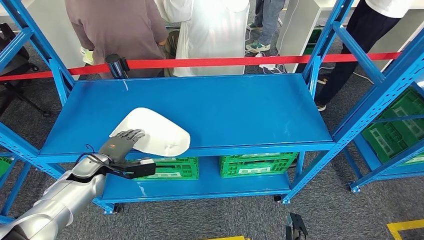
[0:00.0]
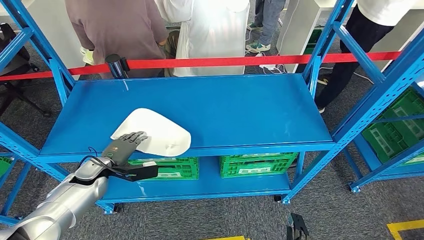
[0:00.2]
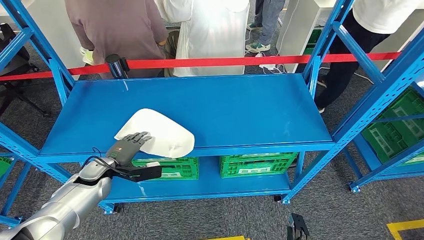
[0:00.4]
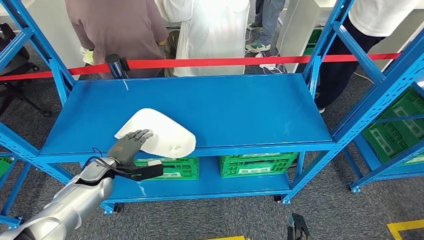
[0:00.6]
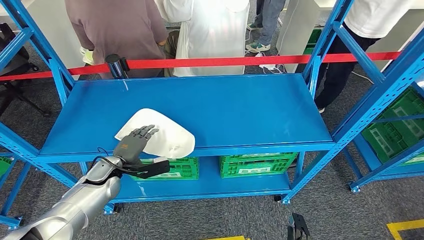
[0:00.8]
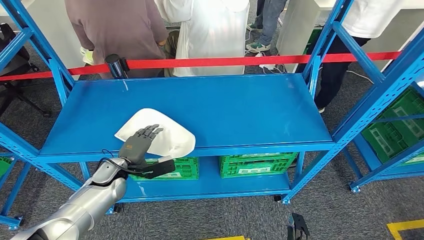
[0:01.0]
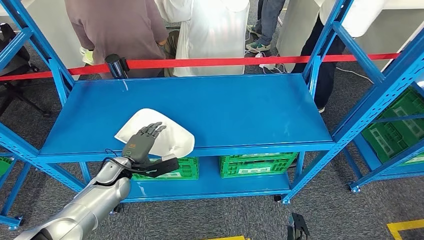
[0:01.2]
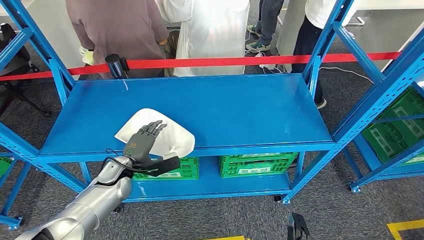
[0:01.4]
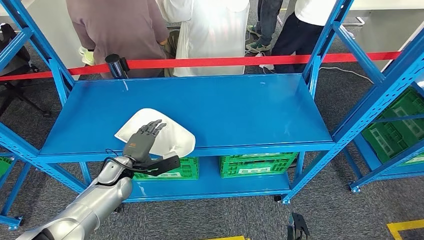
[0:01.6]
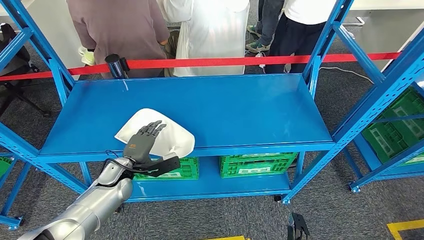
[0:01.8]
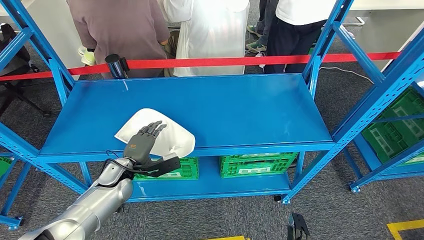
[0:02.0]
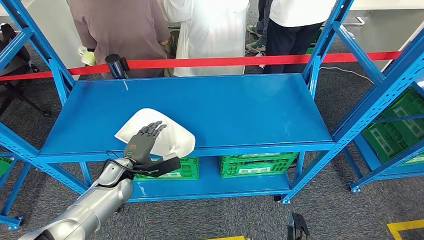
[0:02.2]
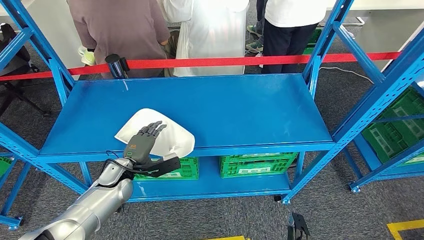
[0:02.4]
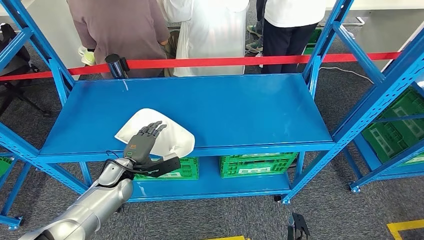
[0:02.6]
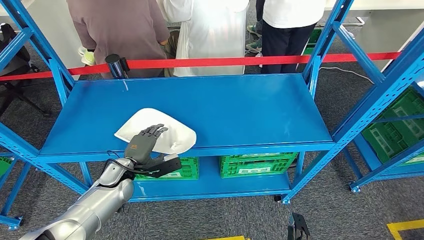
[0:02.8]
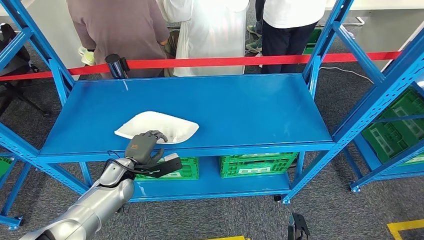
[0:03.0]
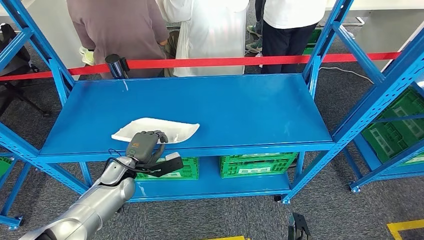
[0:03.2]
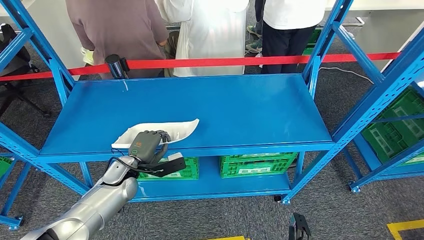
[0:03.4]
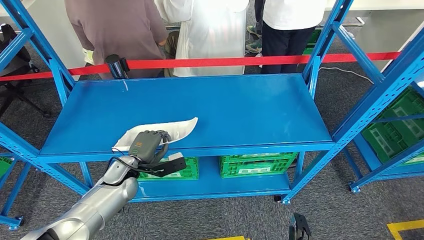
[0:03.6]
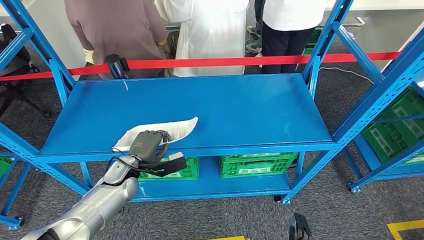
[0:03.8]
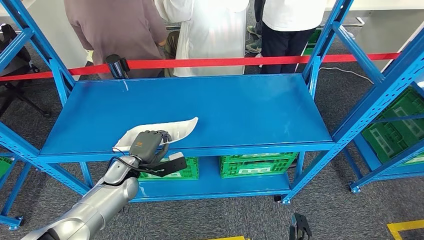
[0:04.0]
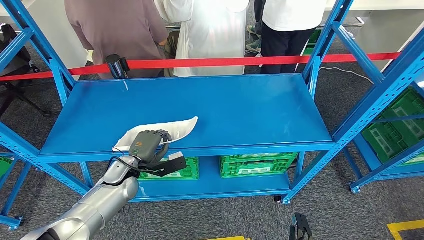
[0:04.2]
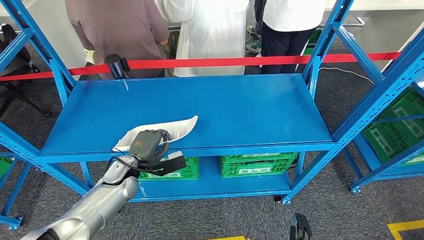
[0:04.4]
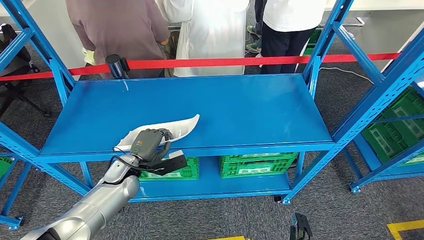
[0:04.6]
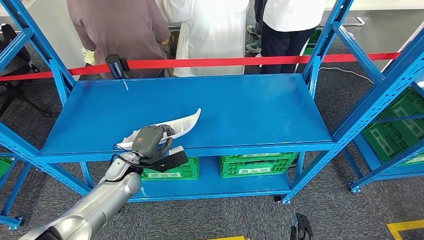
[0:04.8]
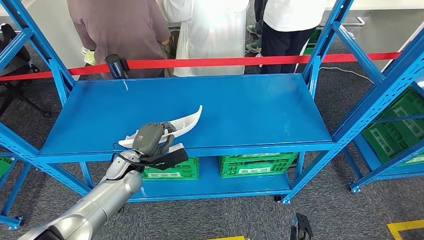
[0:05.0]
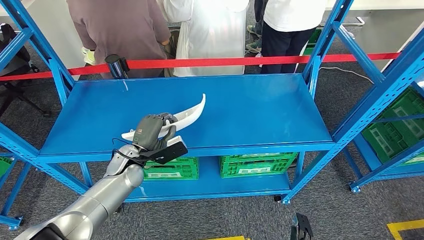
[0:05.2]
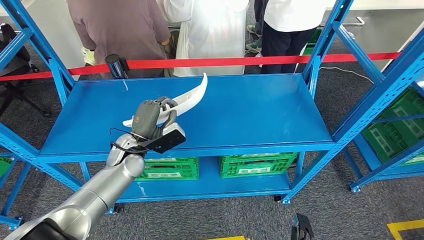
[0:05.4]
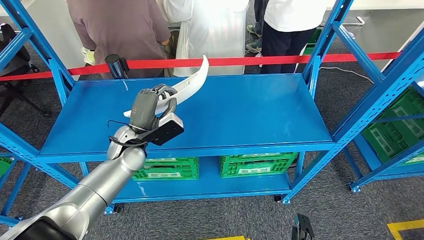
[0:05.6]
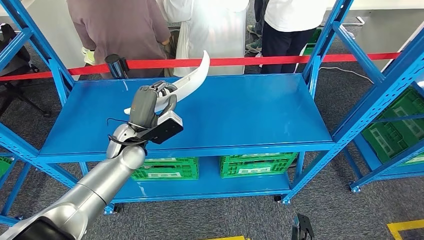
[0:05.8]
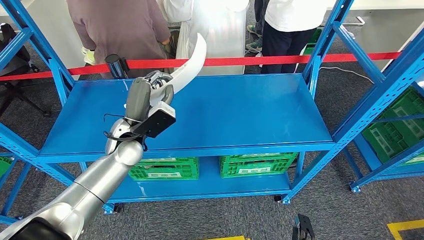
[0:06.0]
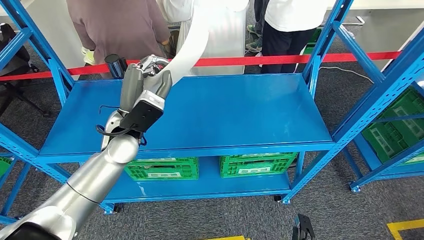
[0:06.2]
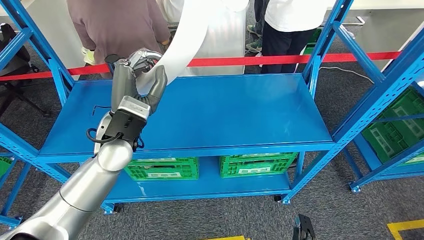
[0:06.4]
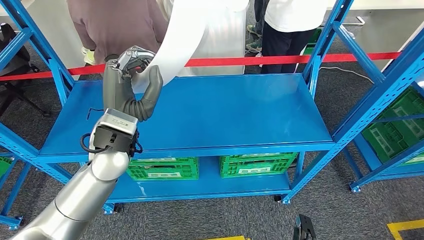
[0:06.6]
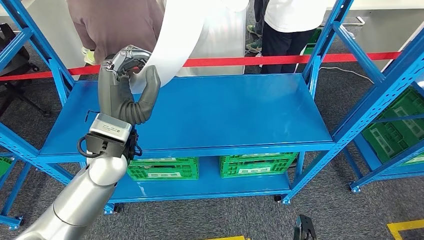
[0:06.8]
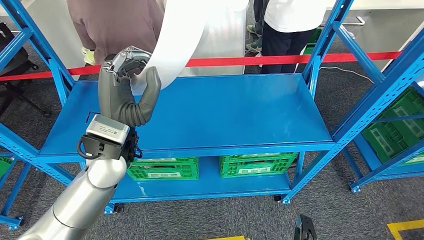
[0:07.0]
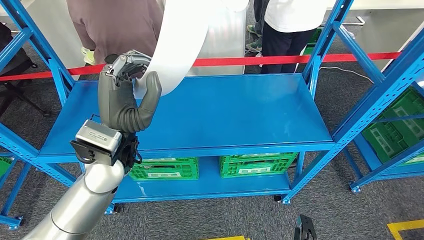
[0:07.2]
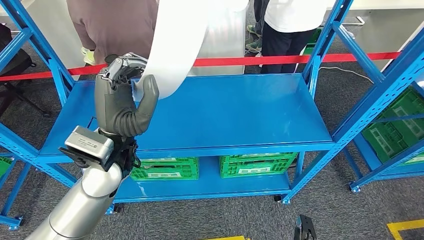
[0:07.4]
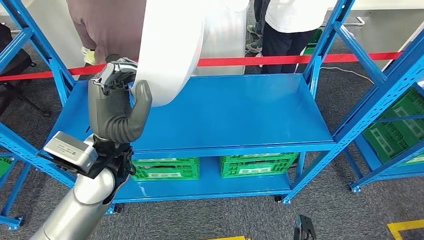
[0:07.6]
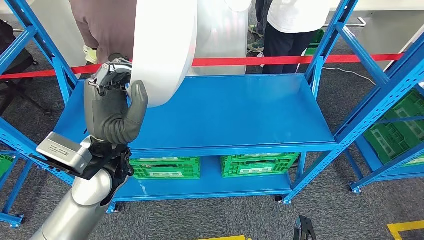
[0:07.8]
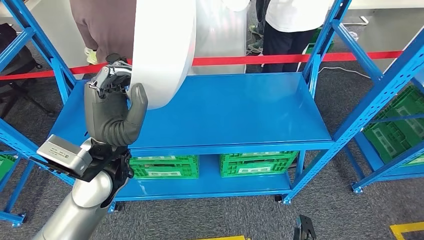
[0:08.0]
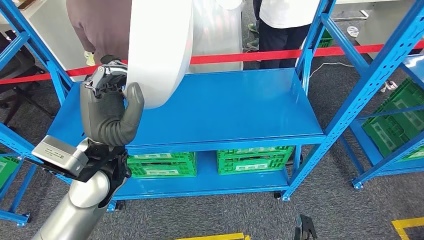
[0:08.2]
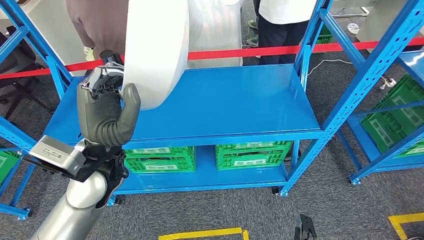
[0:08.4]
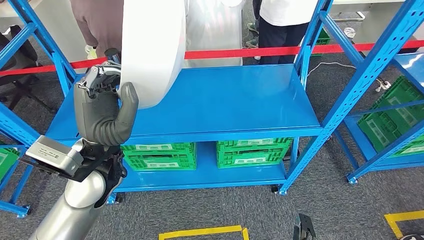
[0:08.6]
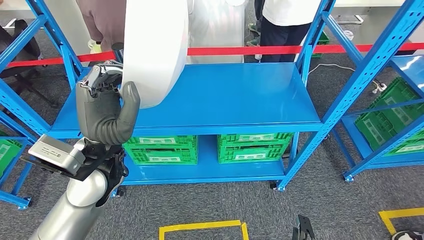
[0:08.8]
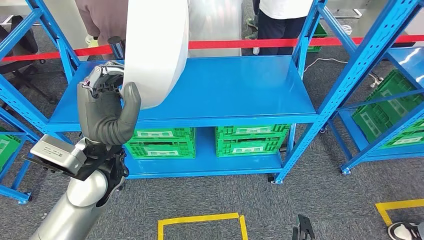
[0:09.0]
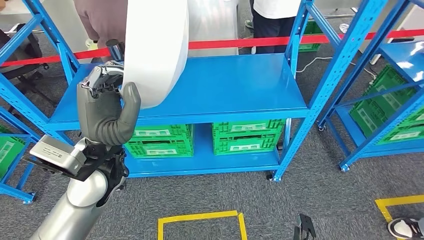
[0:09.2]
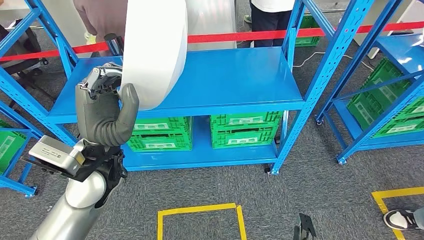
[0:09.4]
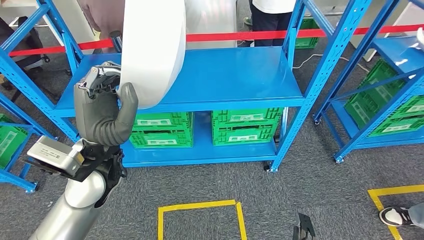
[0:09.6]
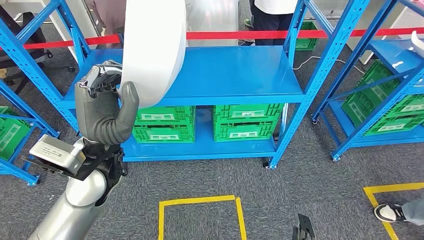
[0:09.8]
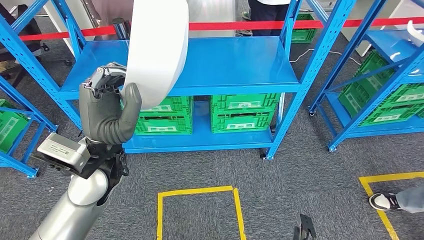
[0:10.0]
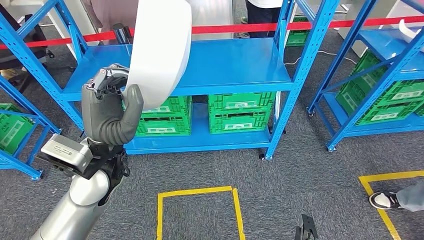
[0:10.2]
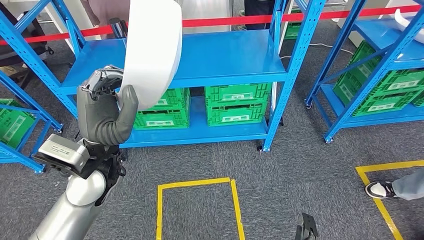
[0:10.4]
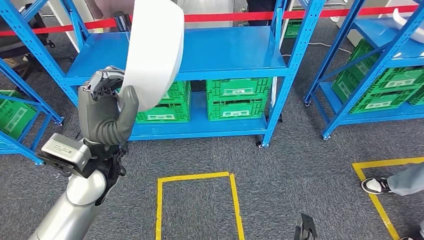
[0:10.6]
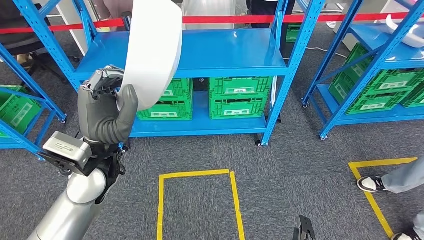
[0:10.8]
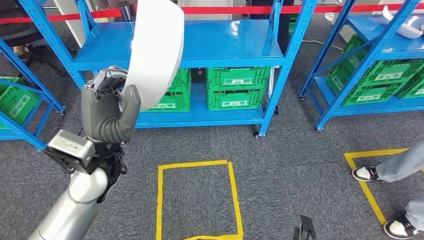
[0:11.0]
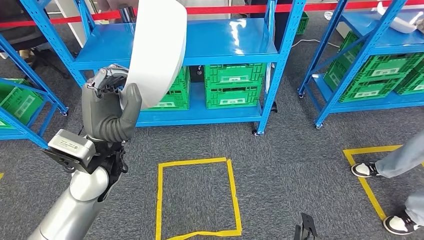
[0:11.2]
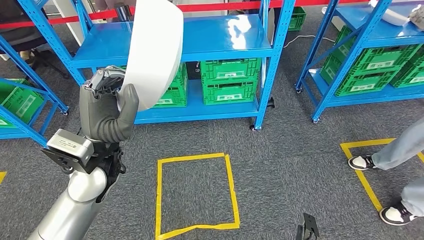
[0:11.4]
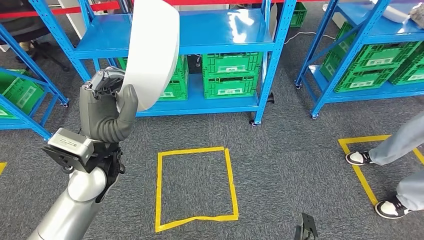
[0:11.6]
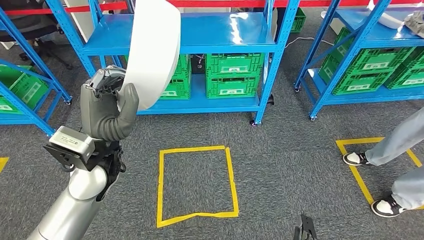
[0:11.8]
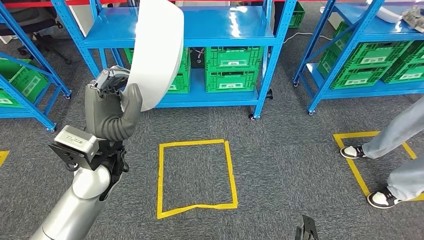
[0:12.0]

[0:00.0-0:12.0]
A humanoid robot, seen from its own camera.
Step, 0:00.0 to 0:05.6: Pick up the large material from the shelf.
0:00.0 to 0:01.6: The left hand moves to the right, about 10 cm.
0:01.6 to 0:03.0: The two hands keep their place.
0:03.0 to 0:04.4: The hands move only a little.
0:04.4 to 0:06.0: The left hand moves upward, roughly 15 cm.
0:06.0 to 0:07.6: The left hand goes some 10 cm upward and backward.

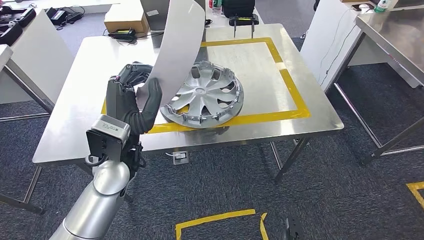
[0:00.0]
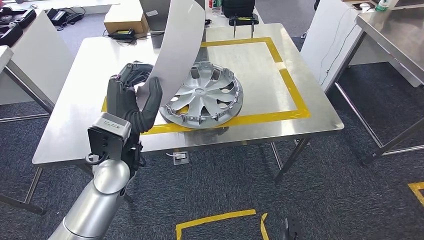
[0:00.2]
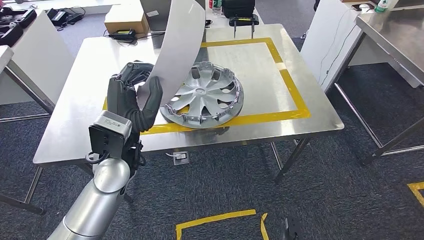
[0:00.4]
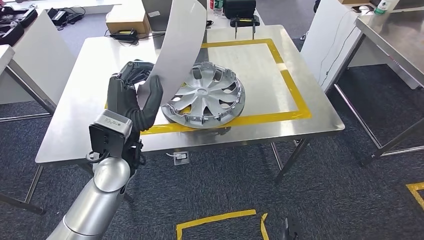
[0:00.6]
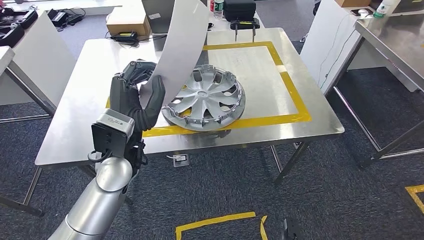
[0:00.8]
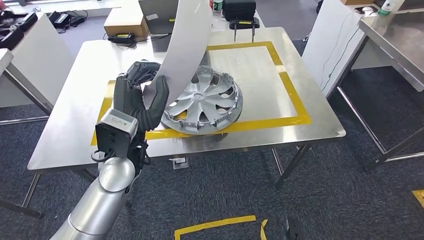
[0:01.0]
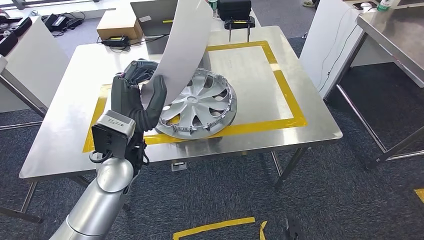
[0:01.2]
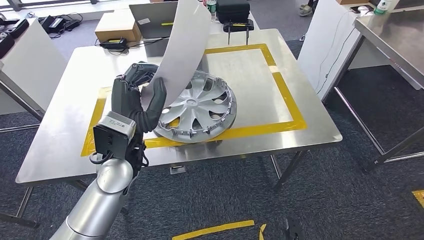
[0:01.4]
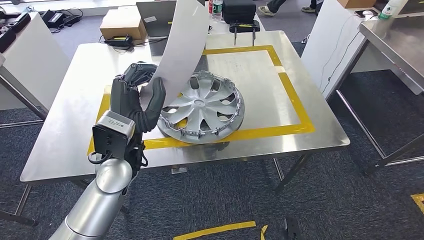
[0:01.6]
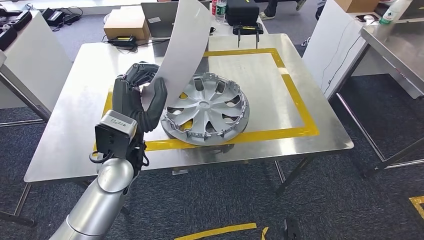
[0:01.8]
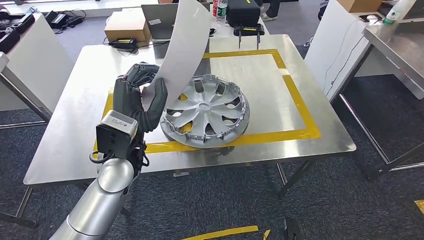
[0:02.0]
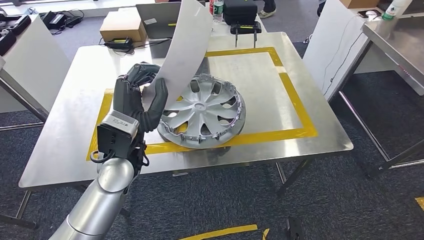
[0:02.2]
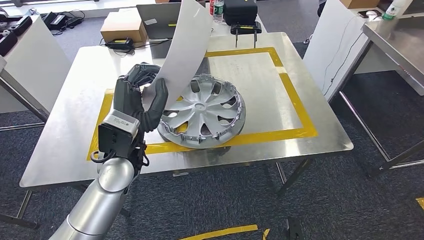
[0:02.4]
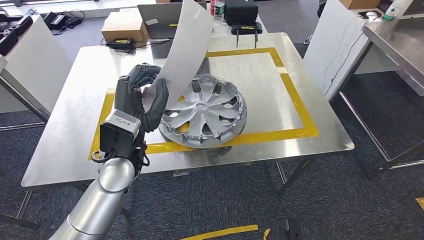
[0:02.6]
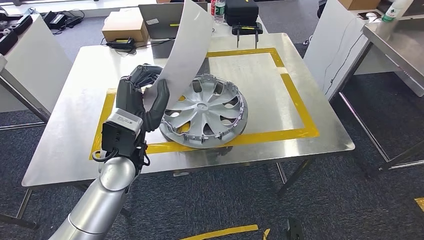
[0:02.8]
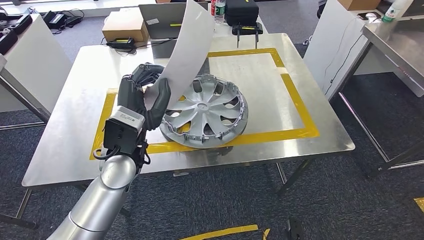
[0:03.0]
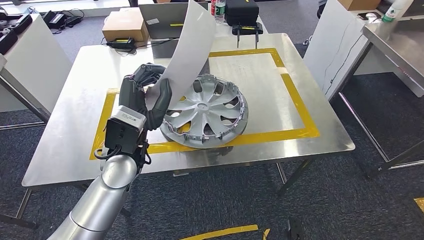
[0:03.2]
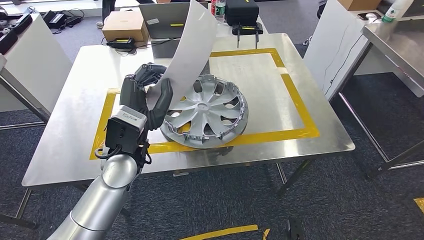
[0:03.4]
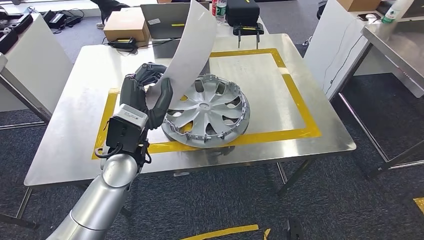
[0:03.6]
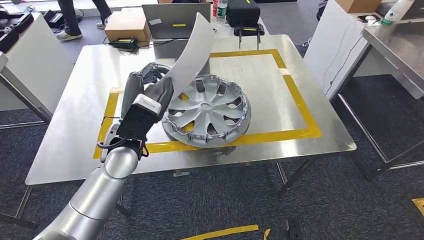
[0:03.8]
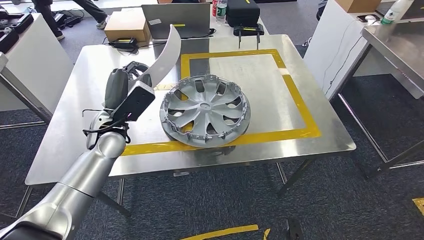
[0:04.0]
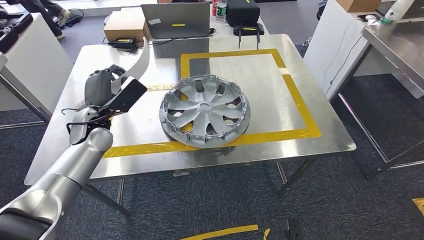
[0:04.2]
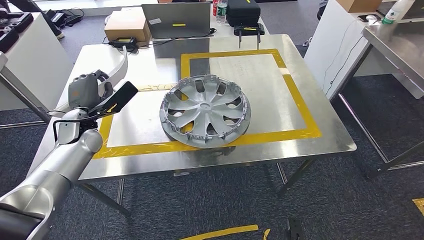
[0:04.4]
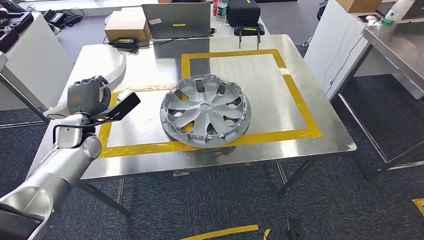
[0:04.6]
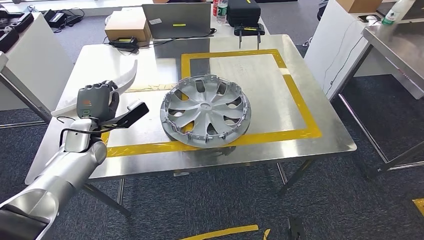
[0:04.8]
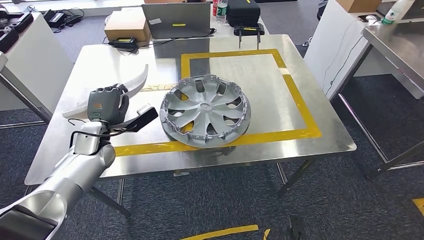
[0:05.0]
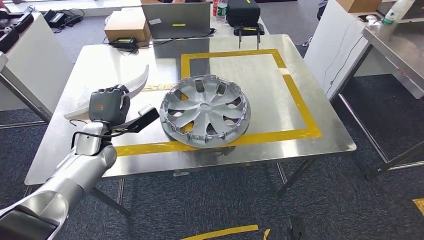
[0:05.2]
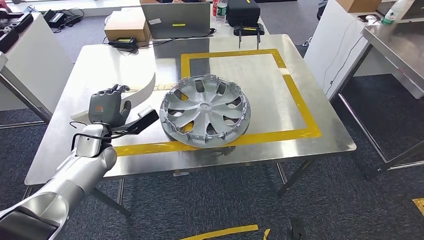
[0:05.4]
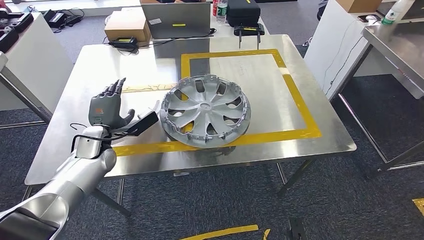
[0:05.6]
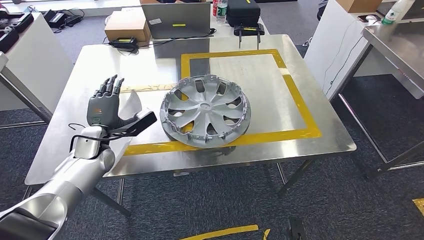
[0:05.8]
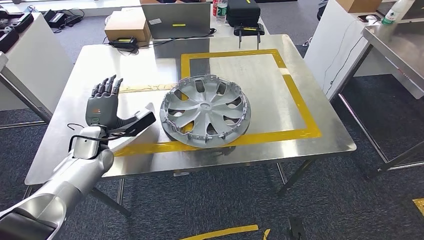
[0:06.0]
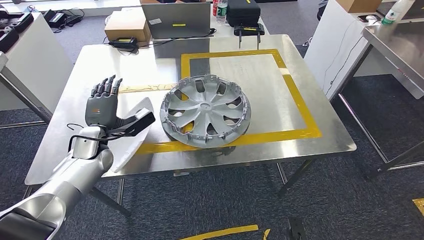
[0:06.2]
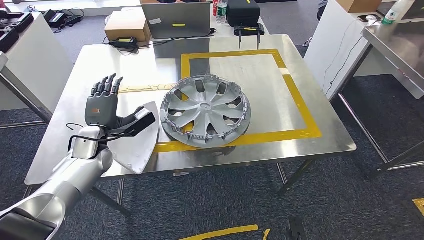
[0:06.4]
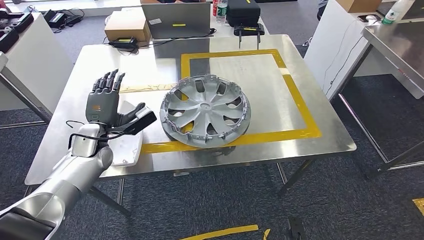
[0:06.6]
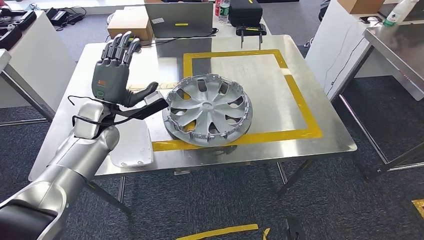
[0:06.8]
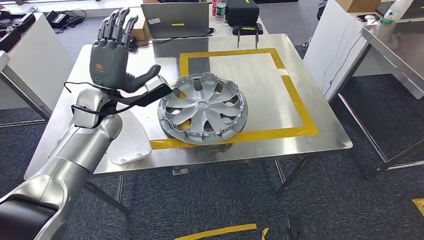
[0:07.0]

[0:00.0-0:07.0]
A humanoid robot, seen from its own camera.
0:04.2 to 0:05.6: The left hand goes approximately 5 cm downward.
